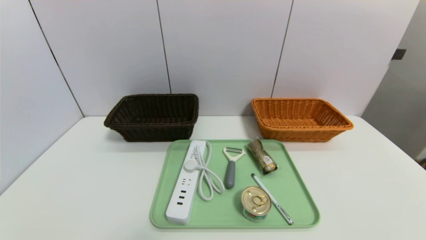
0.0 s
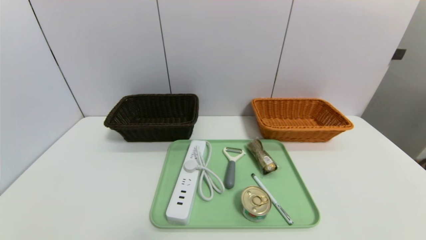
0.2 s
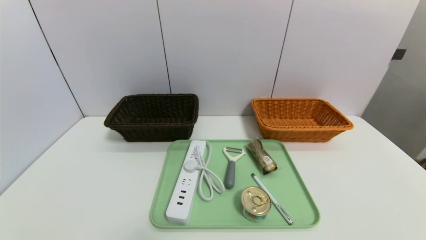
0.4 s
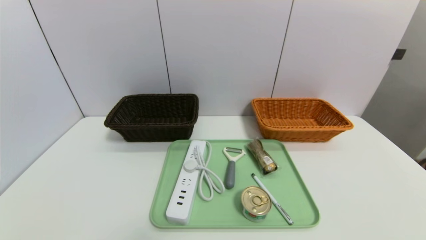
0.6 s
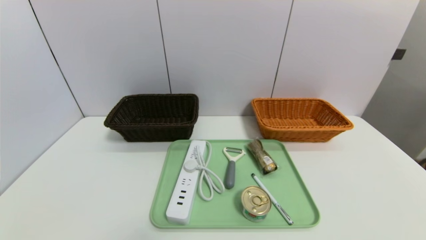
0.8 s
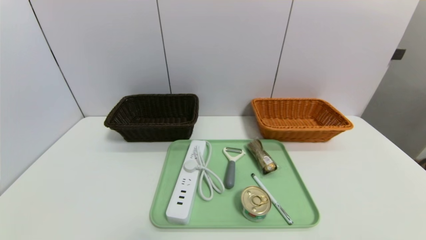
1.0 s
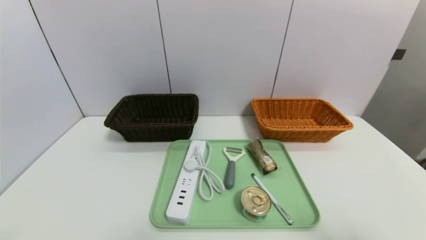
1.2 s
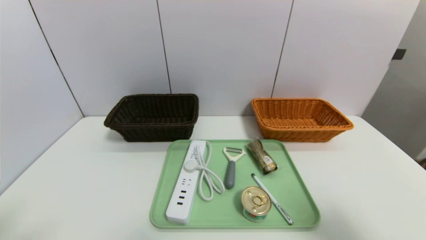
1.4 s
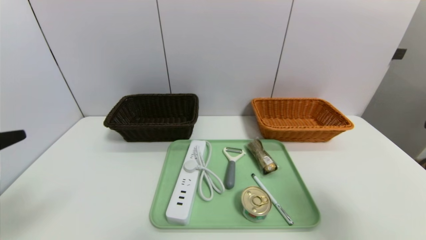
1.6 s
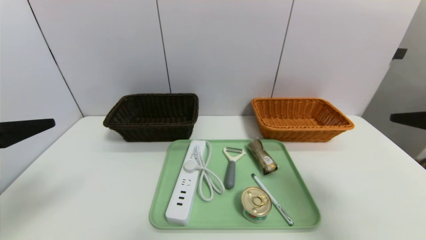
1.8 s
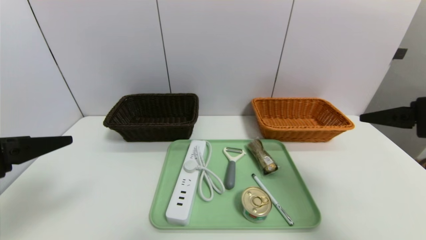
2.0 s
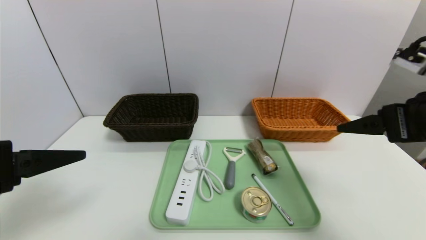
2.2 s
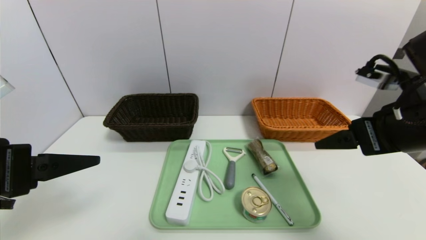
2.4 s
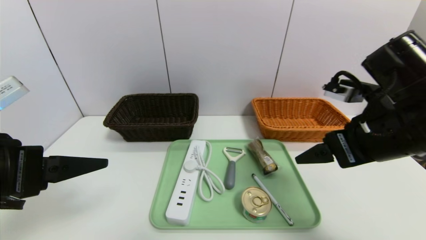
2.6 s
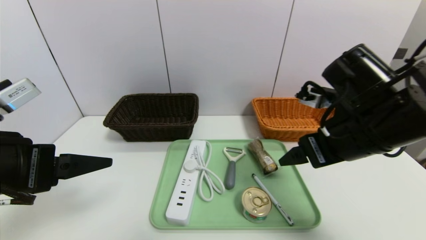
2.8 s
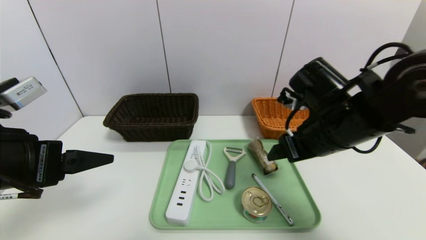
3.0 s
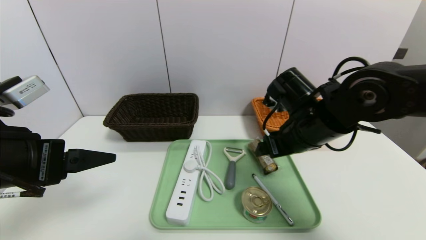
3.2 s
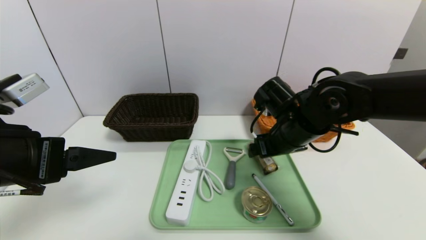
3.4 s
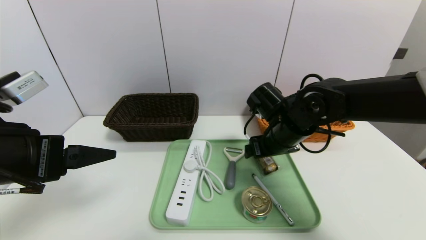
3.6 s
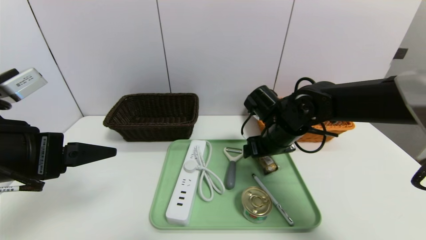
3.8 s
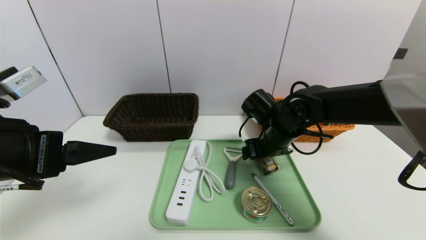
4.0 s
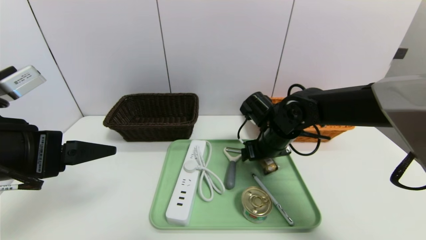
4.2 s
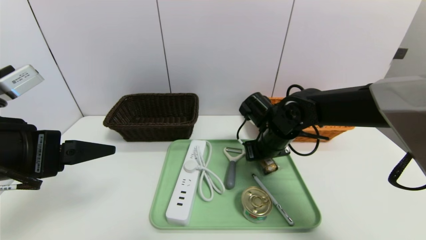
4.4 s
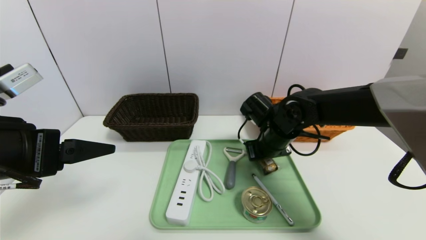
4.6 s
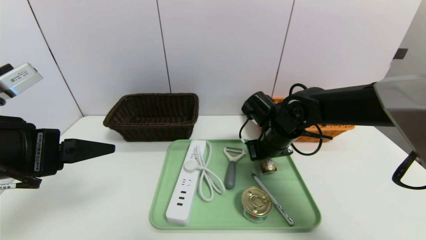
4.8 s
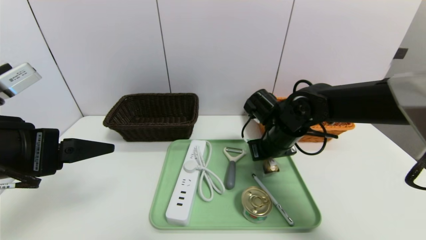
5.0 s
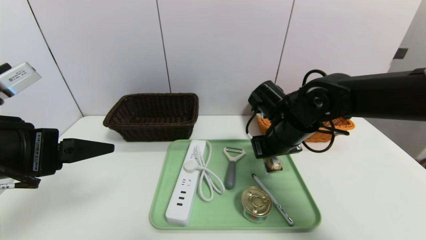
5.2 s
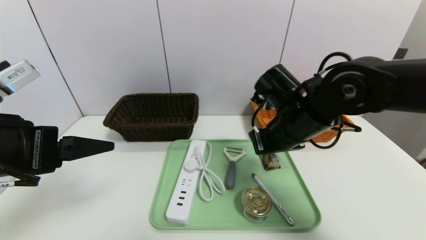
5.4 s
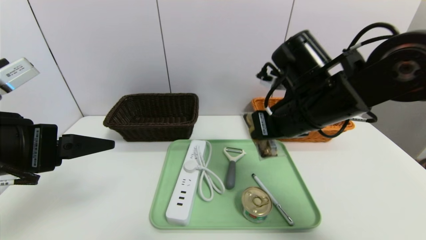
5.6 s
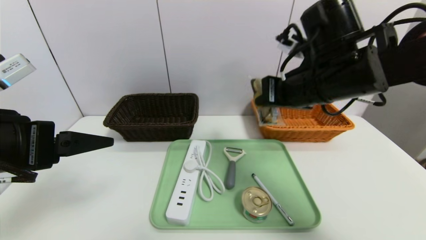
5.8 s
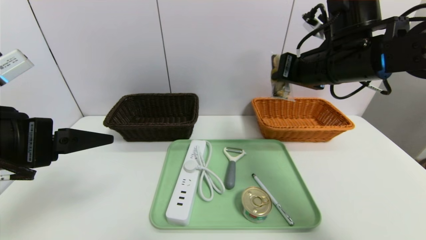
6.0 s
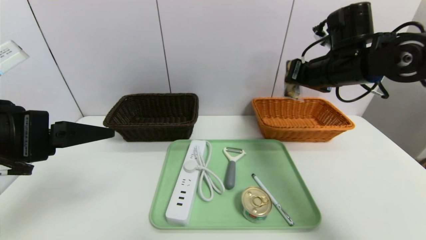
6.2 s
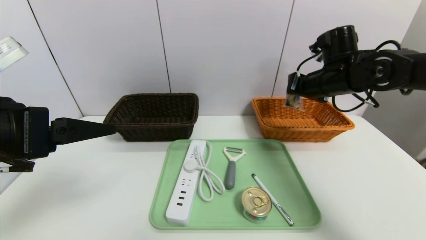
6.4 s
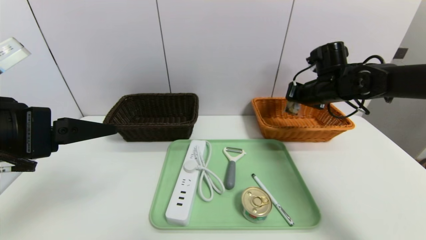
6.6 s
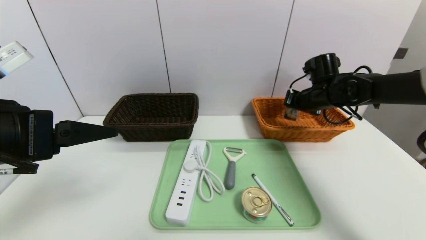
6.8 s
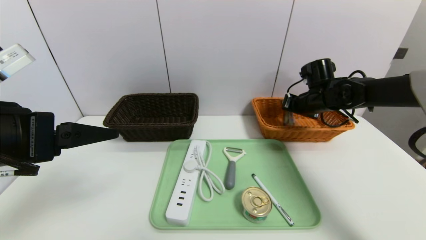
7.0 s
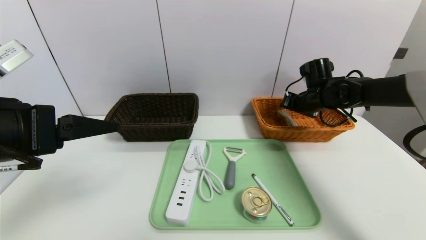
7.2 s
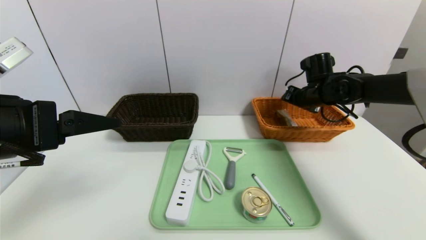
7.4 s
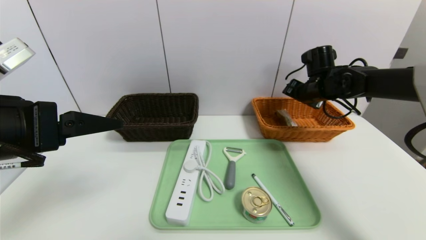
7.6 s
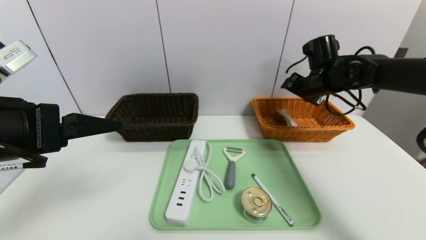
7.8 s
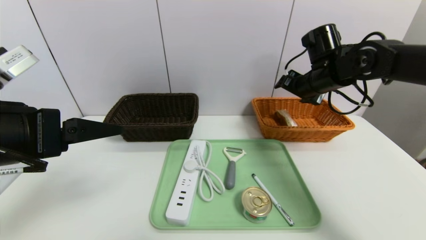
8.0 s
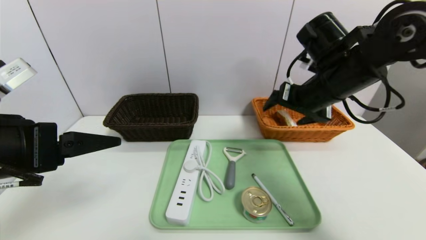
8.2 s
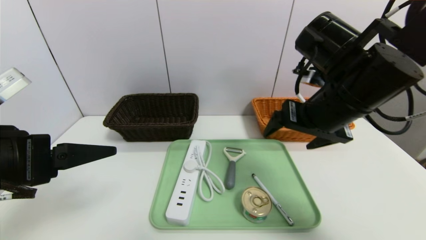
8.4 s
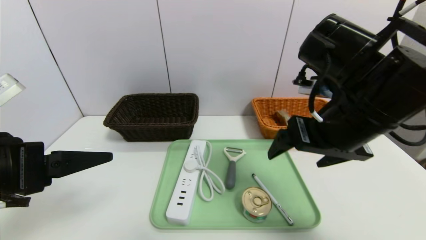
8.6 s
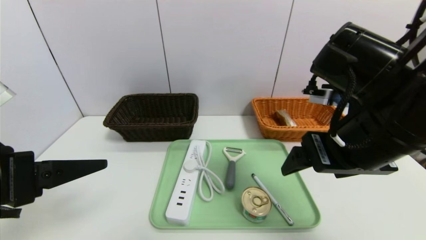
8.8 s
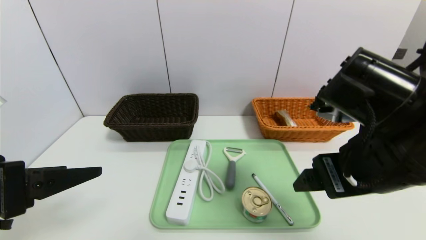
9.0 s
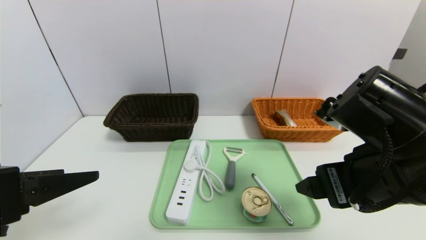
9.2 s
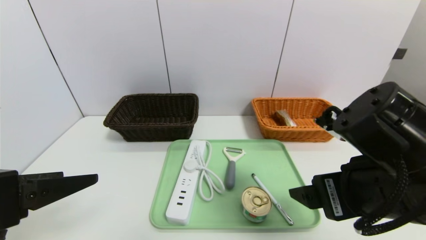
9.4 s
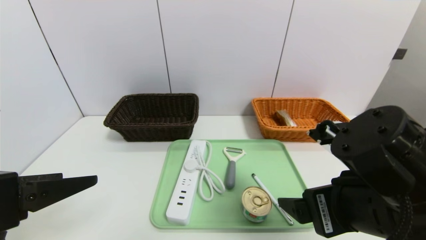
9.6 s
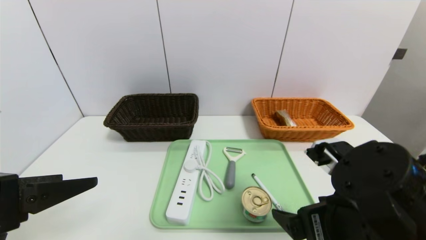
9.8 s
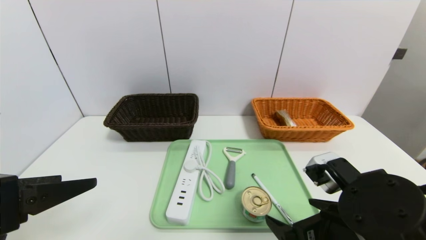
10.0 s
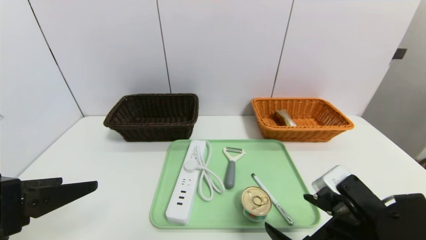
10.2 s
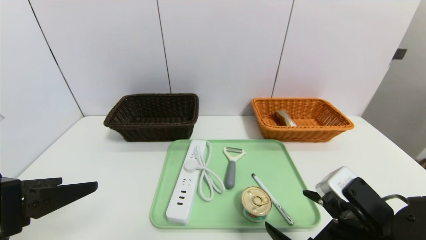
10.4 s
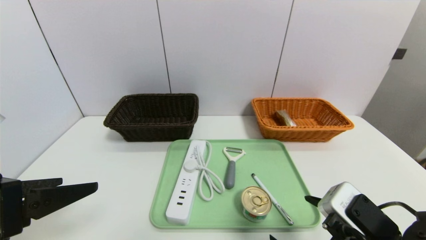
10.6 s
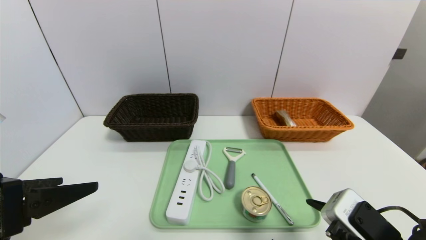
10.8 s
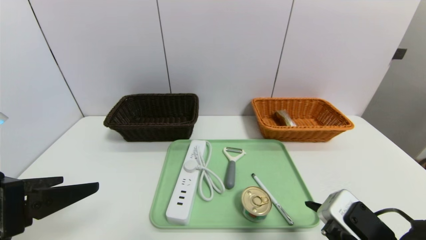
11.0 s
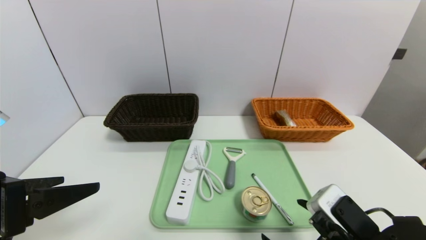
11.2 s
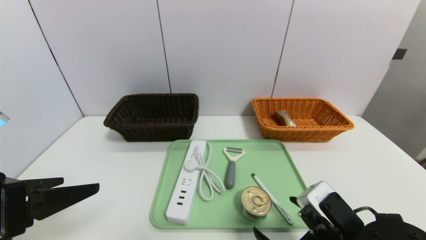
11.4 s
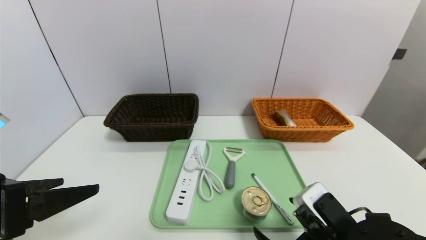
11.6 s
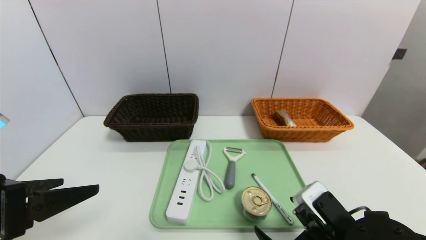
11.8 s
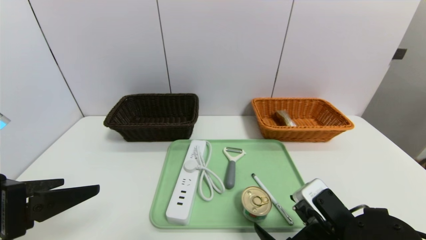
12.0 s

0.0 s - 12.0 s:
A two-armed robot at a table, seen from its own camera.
Task of the whole recording: place the food in the right basket with the right gripper, and place the non food items in the left basket with the left gripper.
Step, 0.0 s - 7.8 s: Grasp the chocolate and put it in the right basket.
0.0 s - 1.6 s: The right gripper travels upward and forward by approximately 25 cm; the left gripper goes roughly 20 cm upward.
1.6 s - 3.0 s: The left gripper shifts about 5 cm forward, while the right gripper heads forward, to the left and downward, covering some 25 cm.
3.0 s - 4.4 s: The right gripper moves forward, downward and to the left, some 15 cm.
4.4 s - 6.0 s: The right gripper travels upward by some 15 cm, and closes.
6.0 s - 7.6 s: The right gripper is displaced forward, downward and to the right by approximately 20 cm, and opens up.
7.6 s - 9.0 s: The left gripper shifts by some 5 cm; the right gripper heads backward, covering about 30 cm.
9.0 s - 10.4 s: The right gripper travels downward and backward by roughly 15 cm.
10.4 s - 12.0 s: The grippers move only a little.

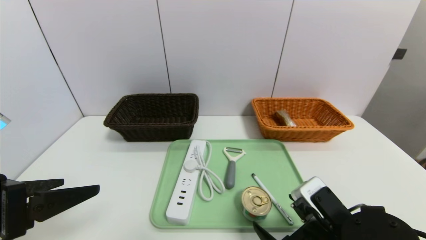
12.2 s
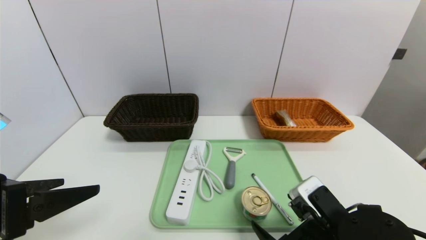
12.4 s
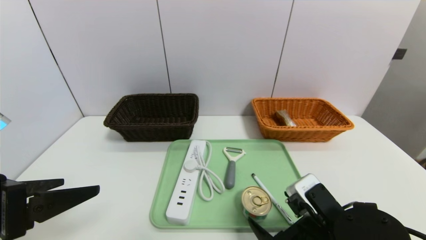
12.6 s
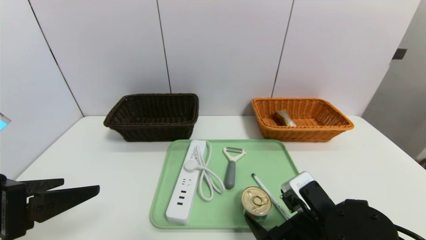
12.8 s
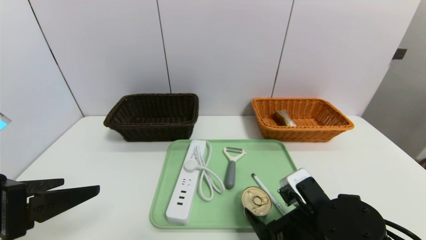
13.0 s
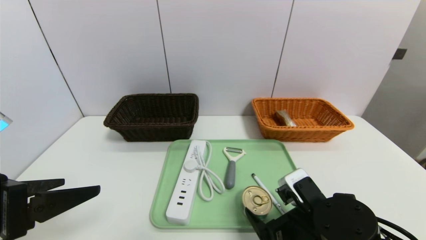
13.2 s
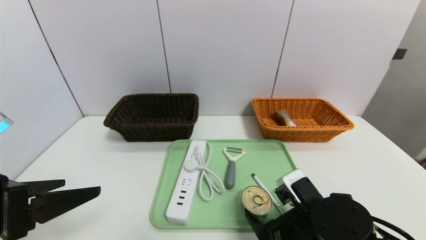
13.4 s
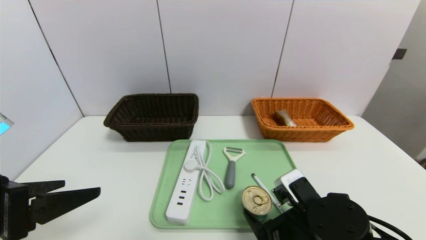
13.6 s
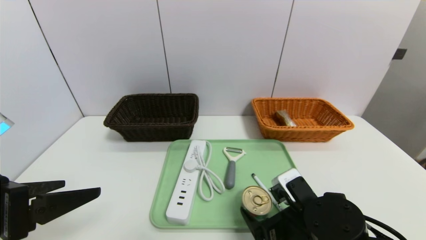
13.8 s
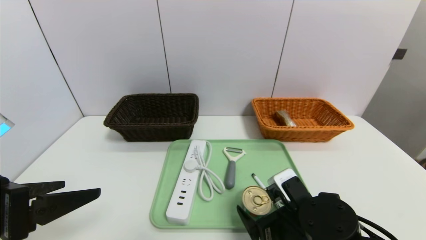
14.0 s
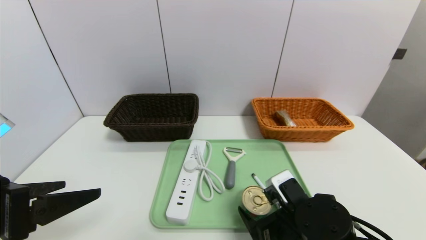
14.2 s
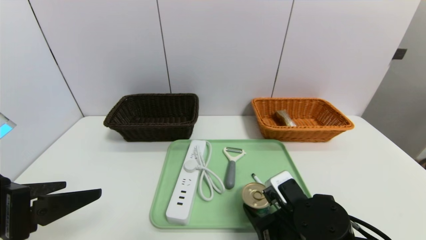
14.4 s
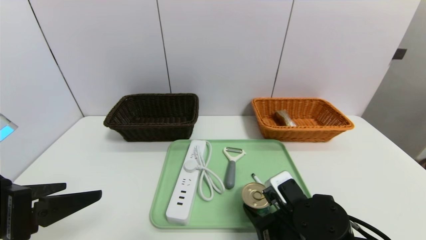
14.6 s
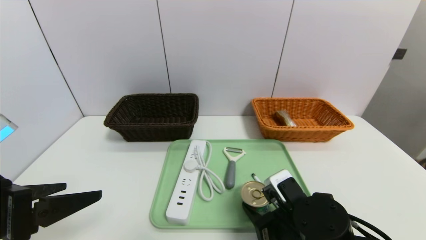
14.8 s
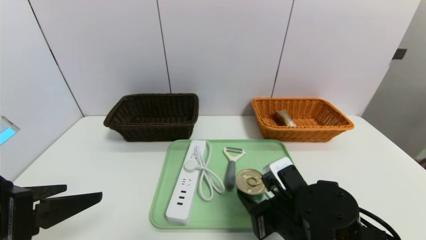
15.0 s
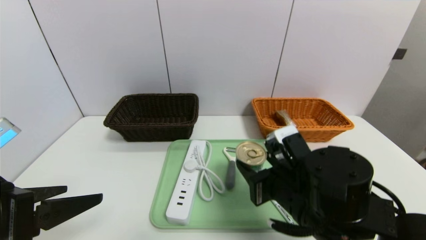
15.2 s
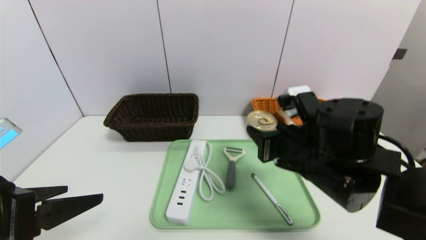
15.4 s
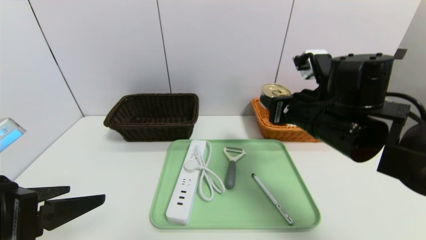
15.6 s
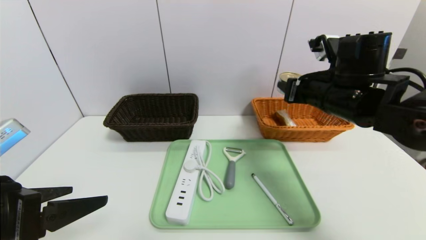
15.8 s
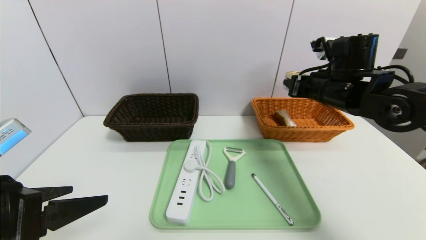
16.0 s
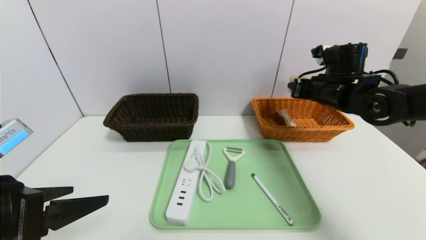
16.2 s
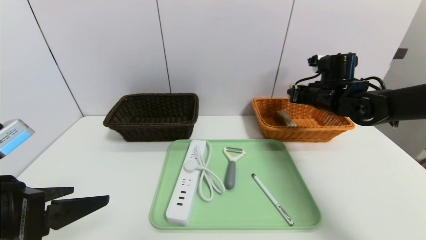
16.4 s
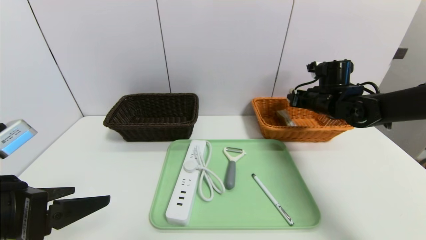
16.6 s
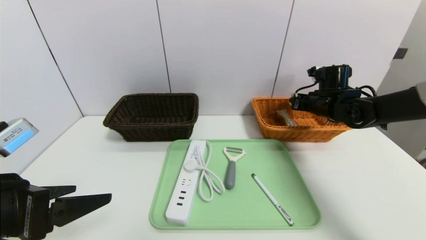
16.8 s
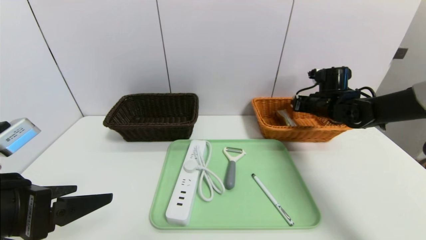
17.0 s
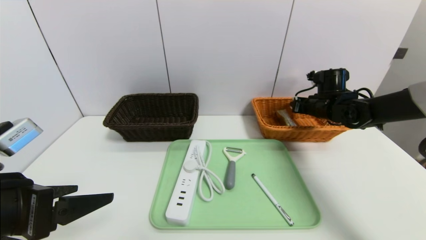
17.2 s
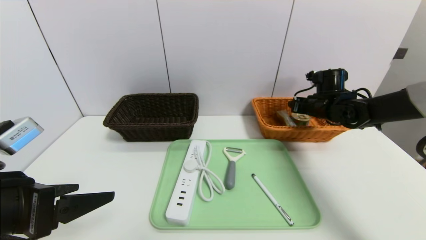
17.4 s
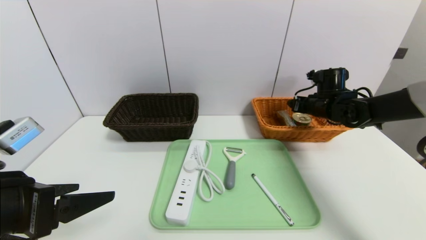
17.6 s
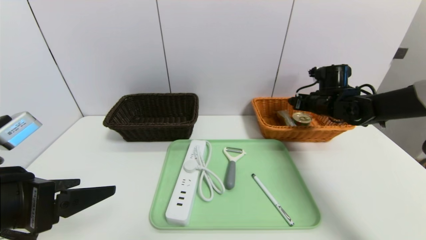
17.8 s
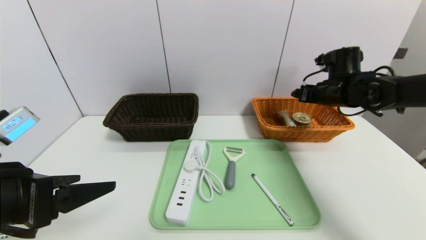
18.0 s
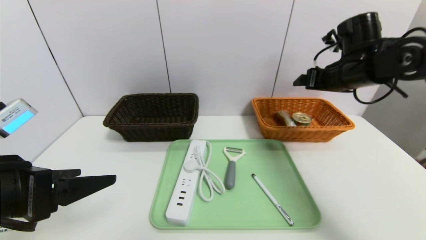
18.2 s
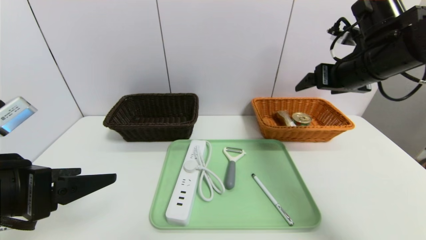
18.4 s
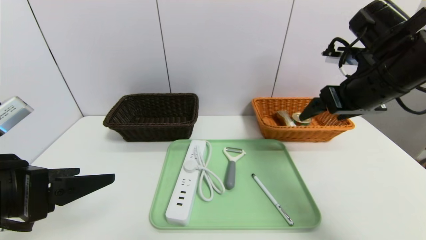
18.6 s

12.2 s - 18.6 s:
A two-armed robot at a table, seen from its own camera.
Task of the whole recording: place the food in the right basket with the right gripper, and place the non food items in the left basket with the left gripper.
Step, 12.2 s - 18.0 s: Grasp the can and put it in the right basket.
12.2 s - 13.8 s: The grippers stay close to where they were, moving slightly.
13.8 s - 15.4 s: The right gripper shifts approximately 15 cm upward and forward, and closes its fingers.
15.4 s - 17.0 s: The right gripper moves forward and to the right, approximately 25 cm.
17.0 s - 18.6 s: The right gripper is displaced backward and upward by about 20 cm, and opens its fingers.
